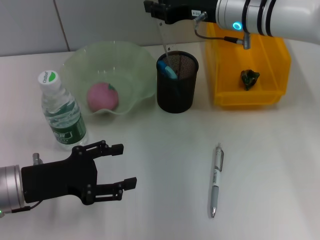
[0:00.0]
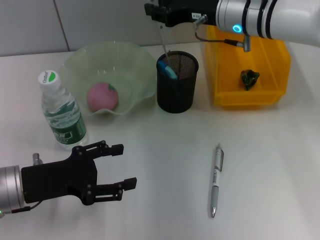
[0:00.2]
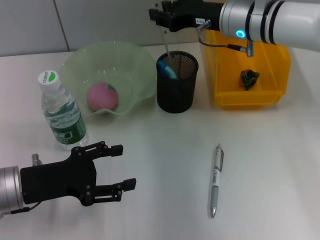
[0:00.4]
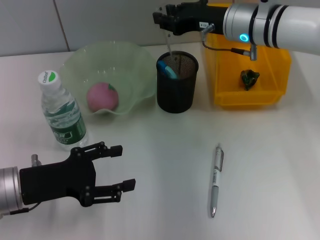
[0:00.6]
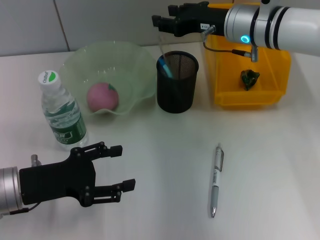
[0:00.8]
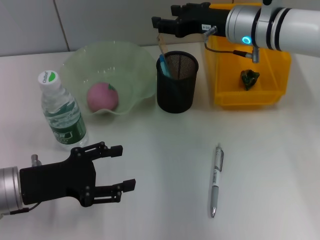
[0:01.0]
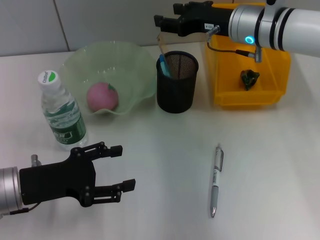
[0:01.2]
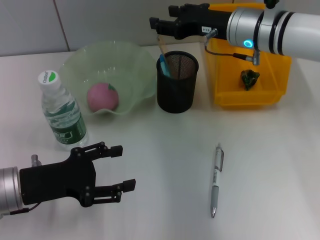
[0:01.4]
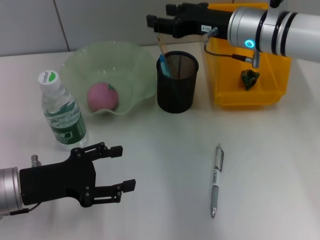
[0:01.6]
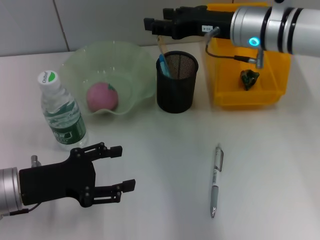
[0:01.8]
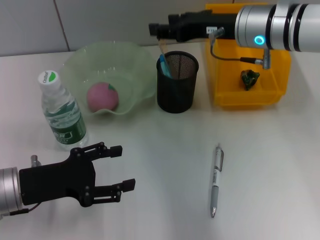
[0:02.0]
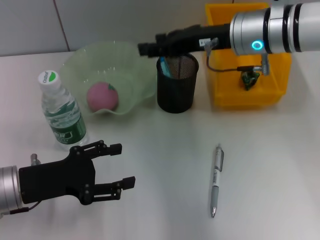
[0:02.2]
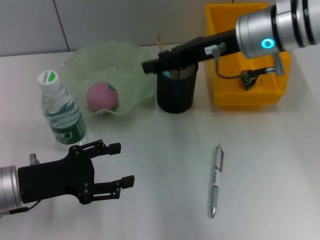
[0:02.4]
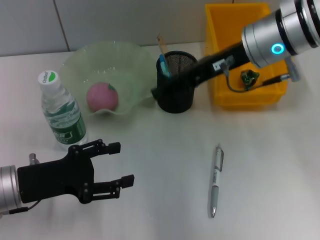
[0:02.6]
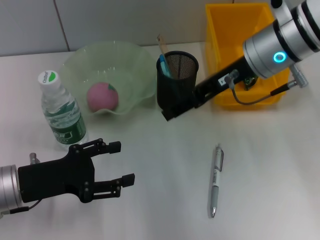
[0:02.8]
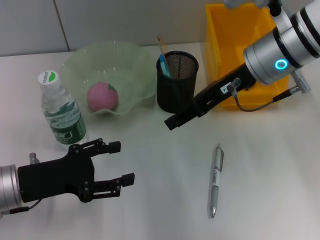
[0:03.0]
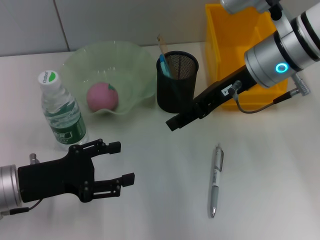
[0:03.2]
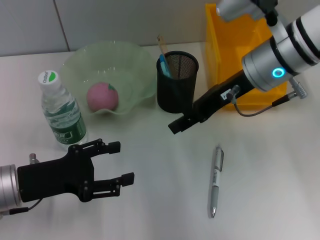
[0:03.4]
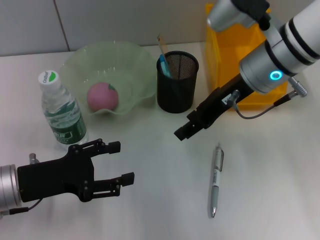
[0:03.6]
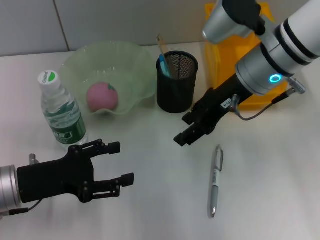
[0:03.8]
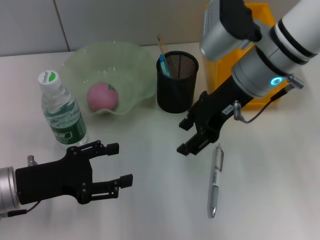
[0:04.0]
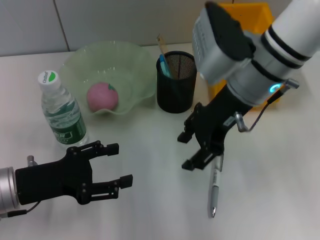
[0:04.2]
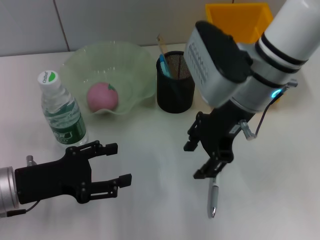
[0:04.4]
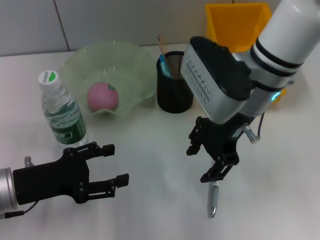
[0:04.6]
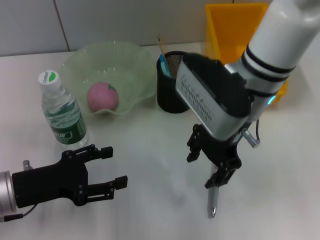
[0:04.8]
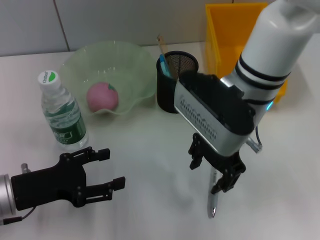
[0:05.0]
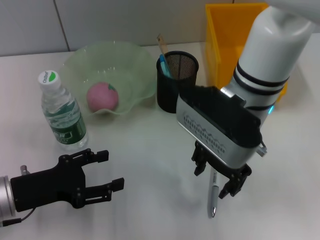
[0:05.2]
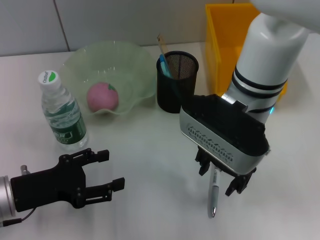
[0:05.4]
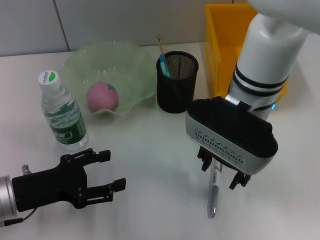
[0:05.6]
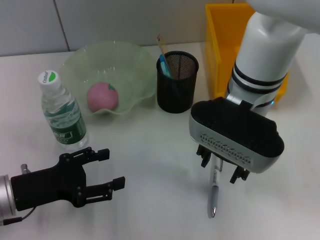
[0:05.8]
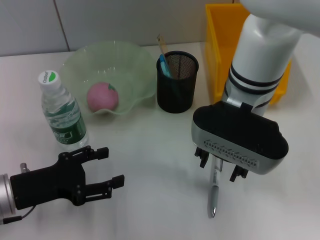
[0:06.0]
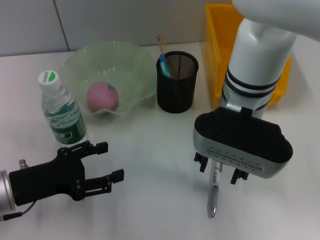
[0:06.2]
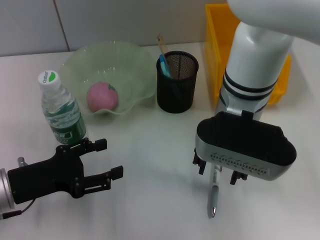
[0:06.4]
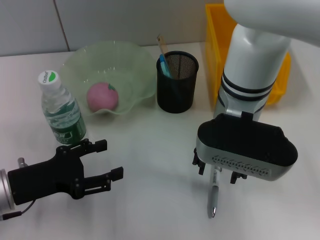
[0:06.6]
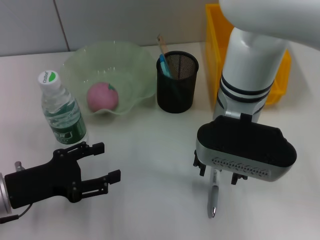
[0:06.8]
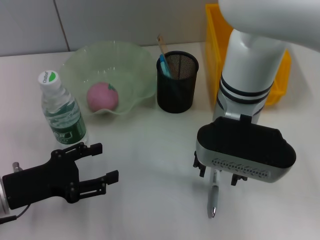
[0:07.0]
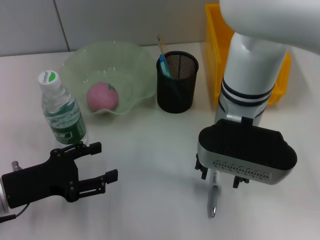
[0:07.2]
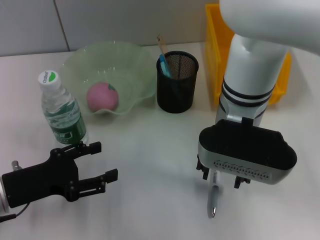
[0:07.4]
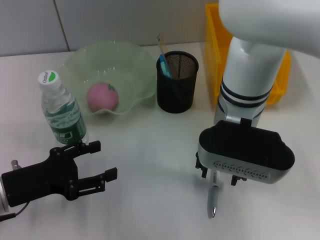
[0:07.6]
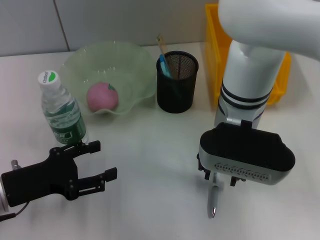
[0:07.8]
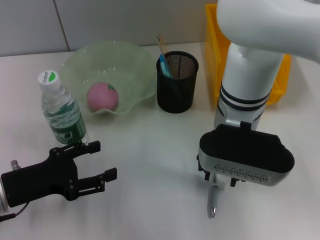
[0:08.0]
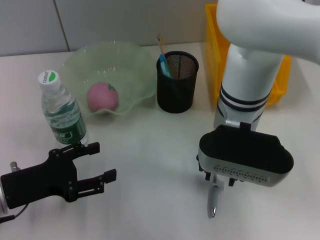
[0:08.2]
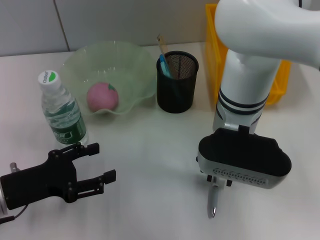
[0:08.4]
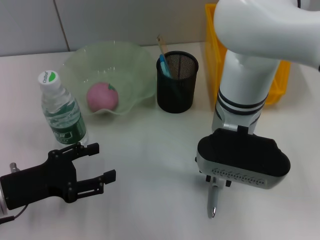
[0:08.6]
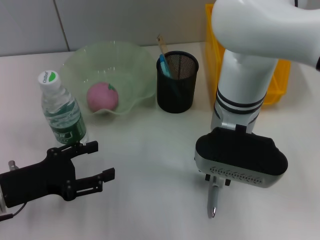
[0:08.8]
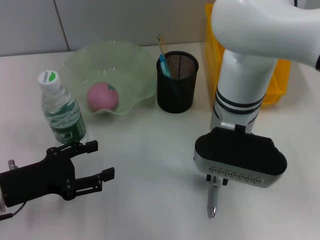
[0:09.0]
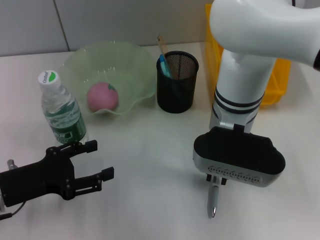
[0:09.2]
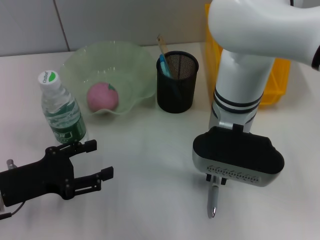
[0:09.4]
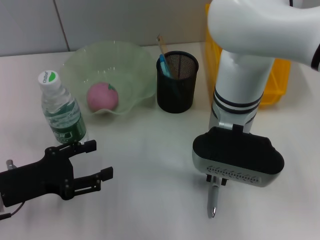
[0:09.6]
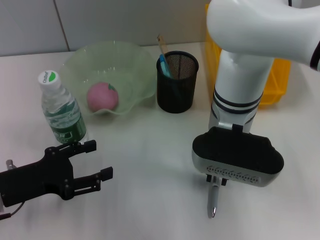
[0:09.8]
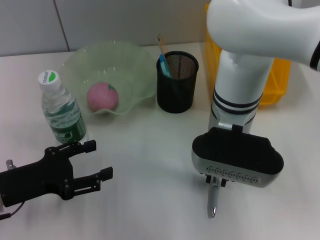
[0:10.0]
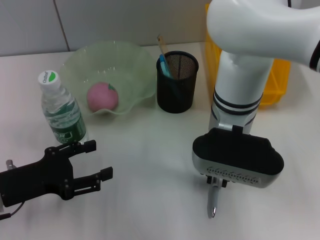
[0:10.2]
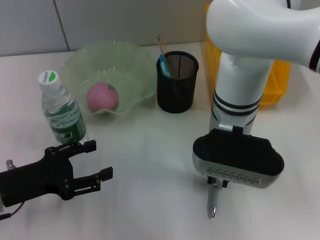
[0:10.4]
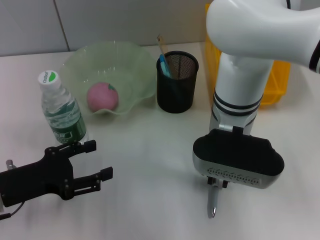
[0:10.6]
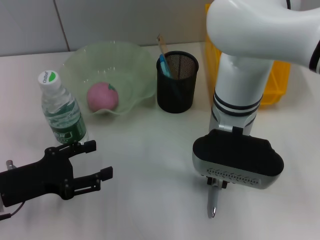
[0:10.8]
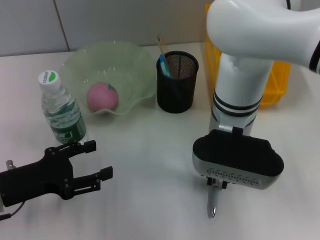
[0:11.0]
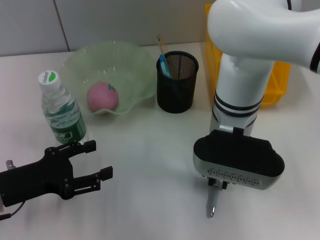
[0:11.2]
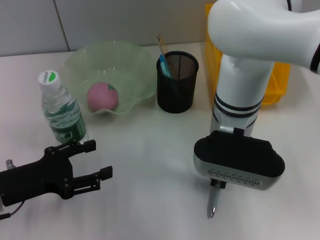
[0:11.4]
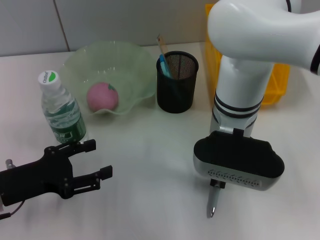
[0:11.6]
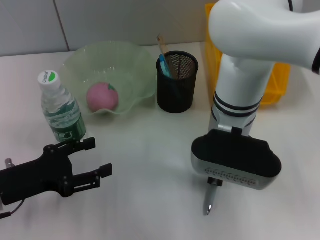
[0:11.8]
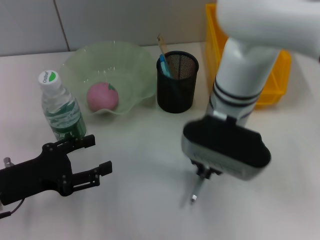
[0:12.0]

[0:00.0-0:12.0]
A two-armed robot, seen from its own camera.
Step, 0:01.2 to 0:11.6: Grab the gray spring-action pen with the right hand.
0:00.0 to 0:01.6: The grippers move only a little.
0:01.6 to 0:03.0: The right gripper is displaced backward by roughly 5 cm.
0:06.0 to 0:07.6: The grippers move only a little.
0:07.6 to 0:09.0: The right gripper closes up.
0:09.0 to 0:10.4: Neither gripper changes place.
0:10.4 to 0:12.0: The grippers make only small movements.

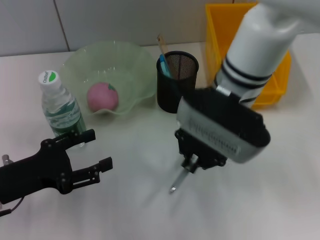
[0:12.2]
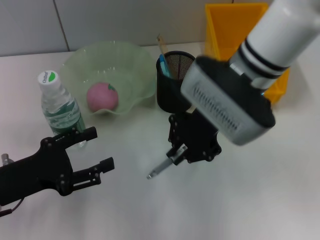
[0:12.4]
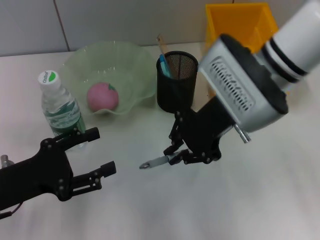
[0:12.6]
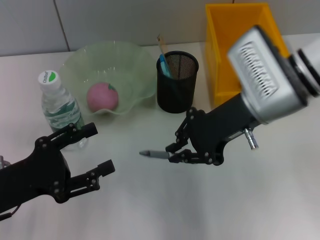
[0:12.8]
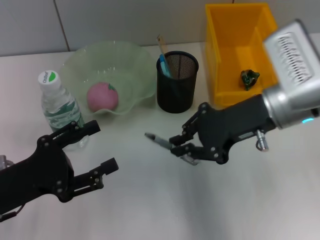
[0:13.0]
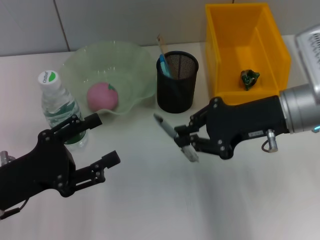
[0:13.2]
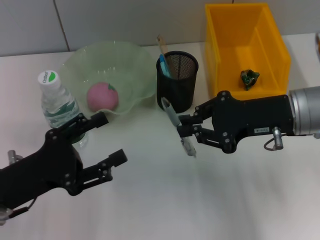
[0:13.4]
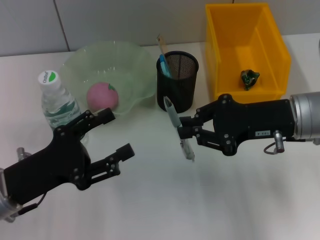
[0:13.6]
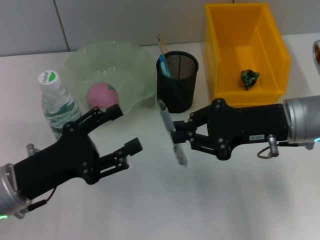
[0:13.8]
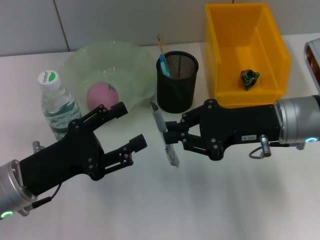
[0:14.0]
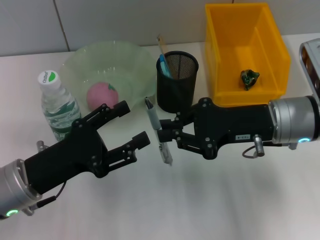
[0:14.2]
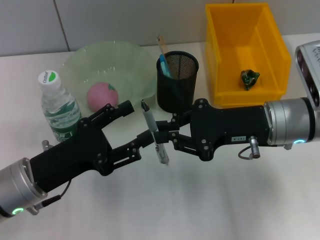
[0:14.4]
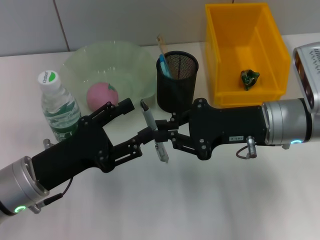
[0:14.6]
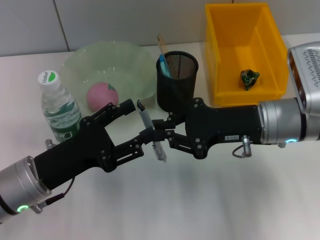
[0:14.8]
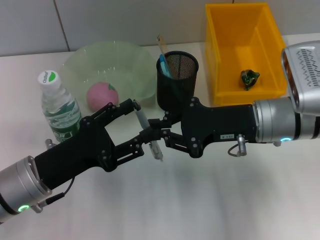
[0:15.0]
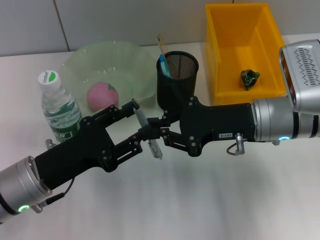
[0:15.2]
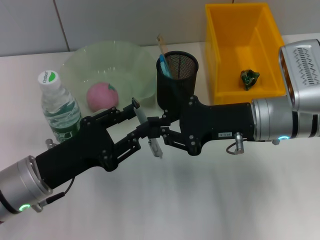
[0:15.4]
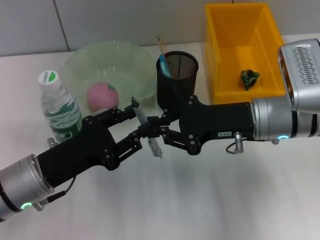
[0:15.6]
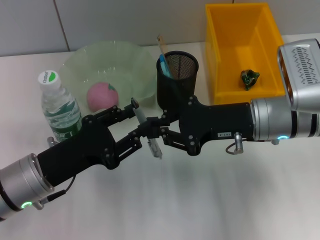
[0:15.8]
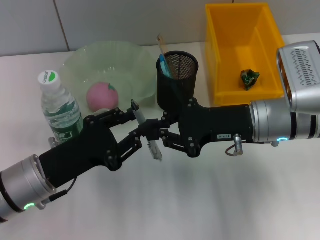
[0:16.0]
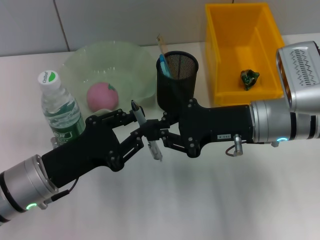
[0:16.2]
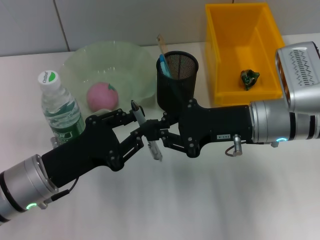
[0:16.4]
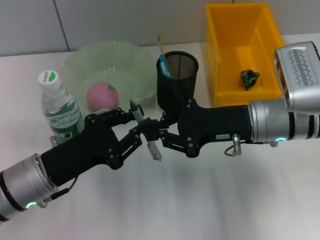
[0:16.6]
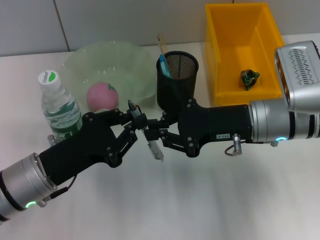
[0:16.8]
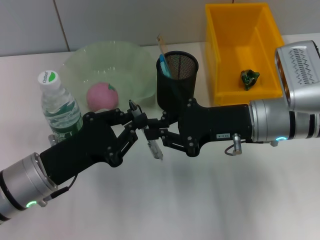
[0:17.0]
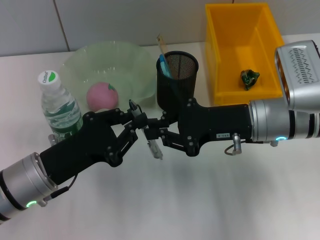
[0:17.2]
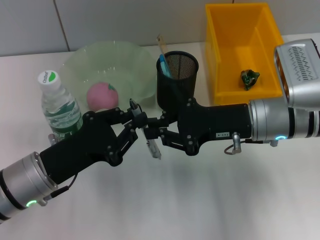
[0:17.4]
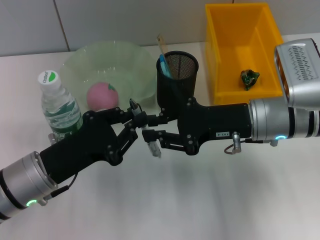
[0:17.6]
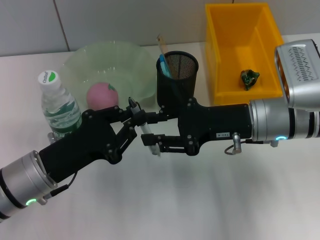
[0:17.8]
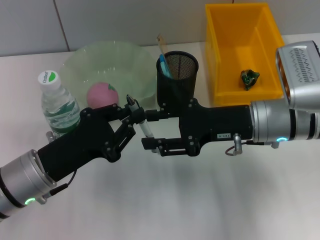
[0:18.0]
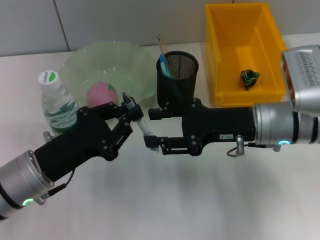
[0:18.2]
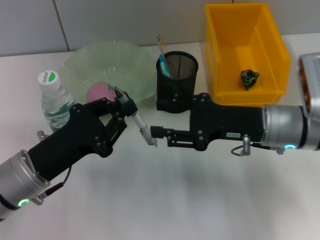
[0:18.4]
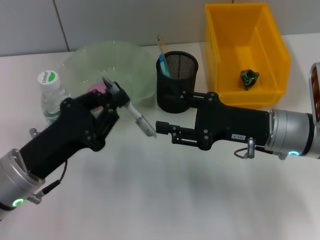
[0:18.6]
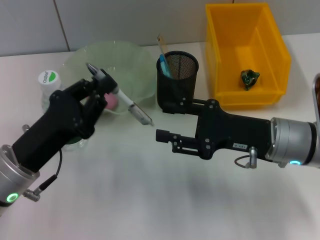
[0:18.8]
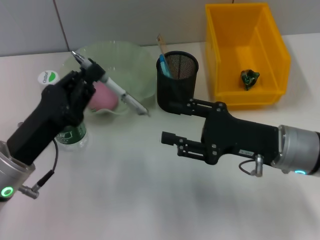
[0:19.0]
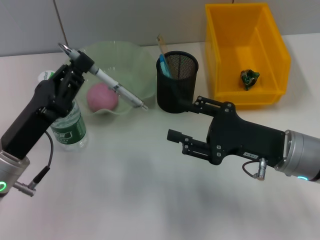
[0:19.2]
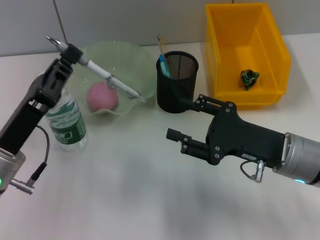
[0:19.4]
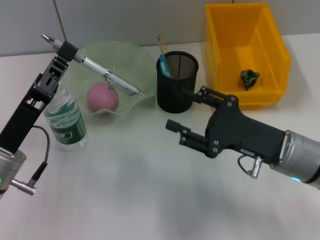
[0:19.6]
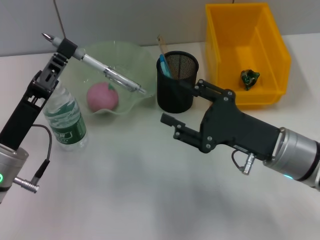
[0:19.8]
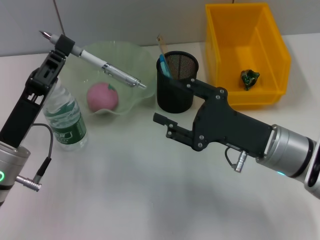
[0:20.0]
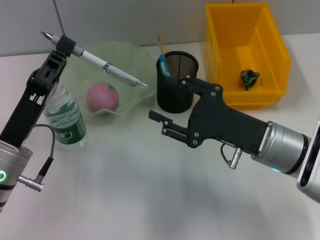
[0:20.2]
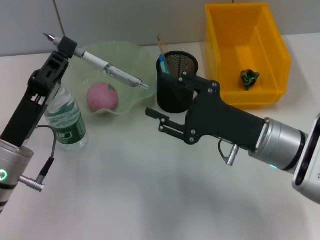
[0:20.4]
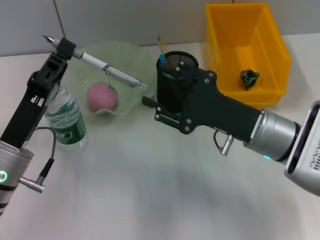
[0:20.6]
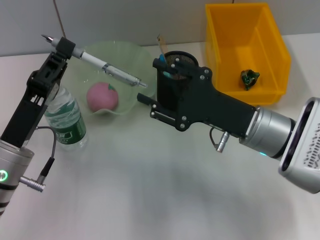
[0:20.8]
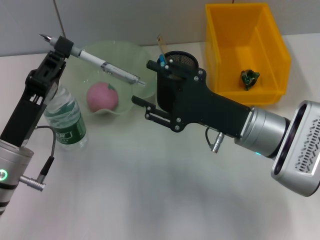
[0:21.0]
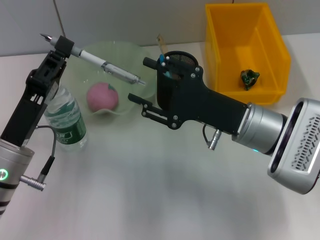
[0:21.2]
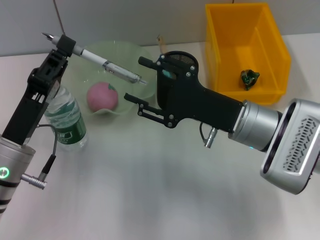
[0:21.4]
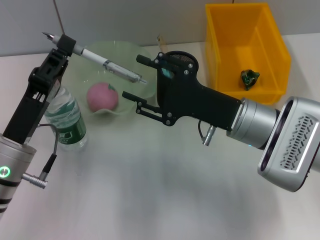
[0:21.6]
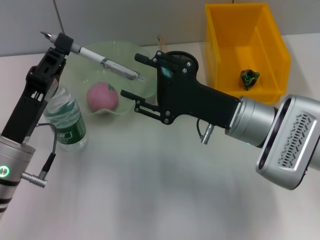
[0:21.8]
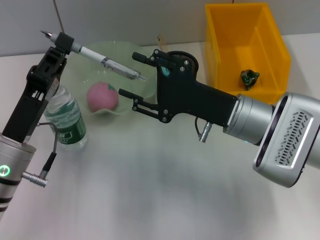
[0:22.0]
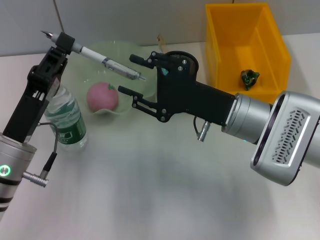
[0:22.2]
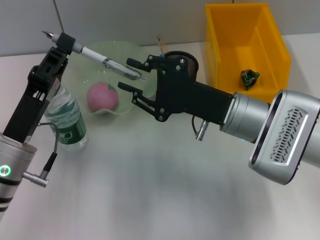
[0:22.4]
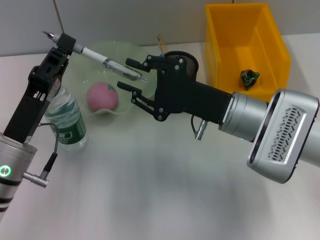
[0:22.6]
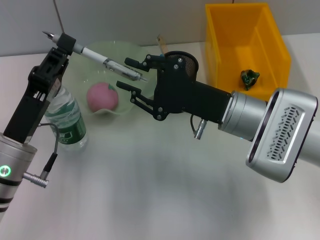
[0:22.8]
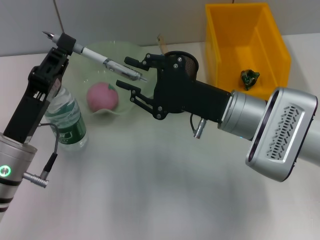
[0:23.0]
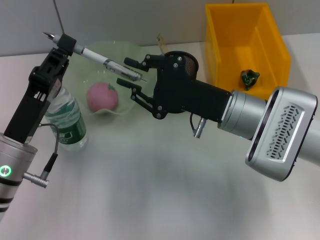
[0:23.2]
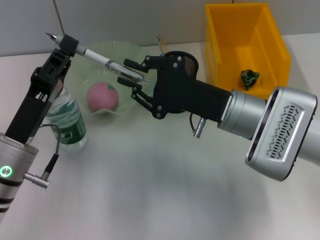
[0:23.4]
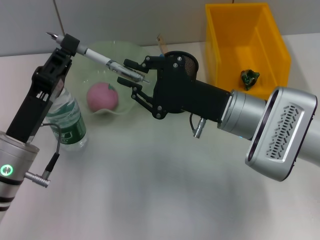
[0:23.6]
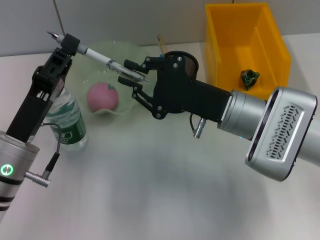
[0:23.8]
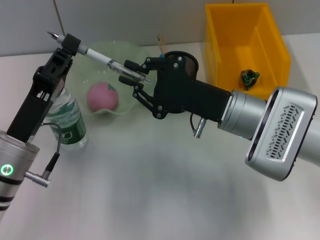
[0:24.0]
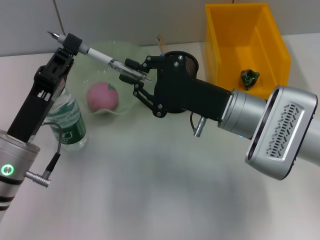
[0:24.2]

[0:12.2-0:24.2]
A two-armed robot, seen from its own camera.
Step, 0:12.2 to 0:17.8: Pass the gray spring-action pen from the right hand to the left hand.
0:12.2 to 0:13.8: The right gripper shifts about 10 cm to the right.
0:13.8 to 0:15.2: The grippers stay close to where they were, moving slightly.
0:15.2 to 0:16.6: The left gripper closes up.
0:16.6 to 0:18.2: The right gripper opens its fingers.
0:18.2 to 0:19.8: The right gripper heads backward, covering some 5 cm.
0:19.8 to 0:21.2: The right gripper shifts by approximately 5 cm.
0:21.2 to 0:22.6: The grippers move only a little.
0:22.6 to 0:24.2: The two grippers keep their place.
